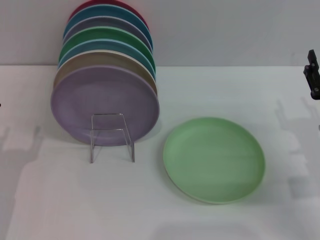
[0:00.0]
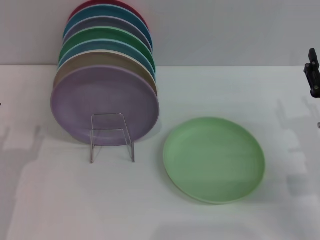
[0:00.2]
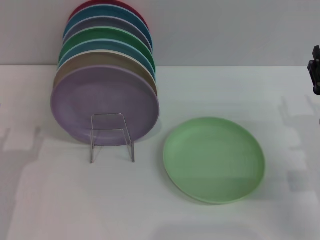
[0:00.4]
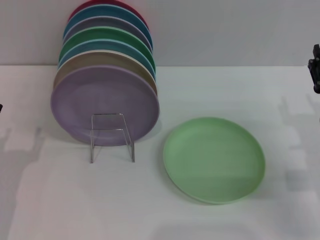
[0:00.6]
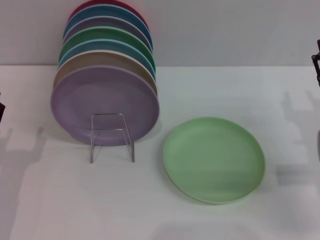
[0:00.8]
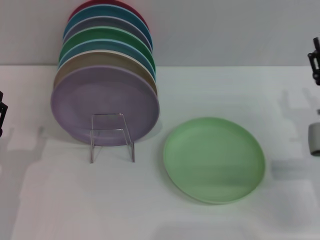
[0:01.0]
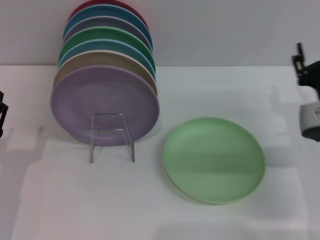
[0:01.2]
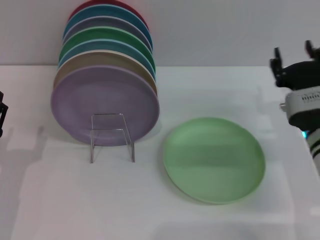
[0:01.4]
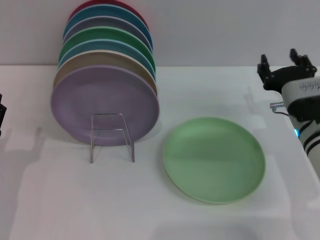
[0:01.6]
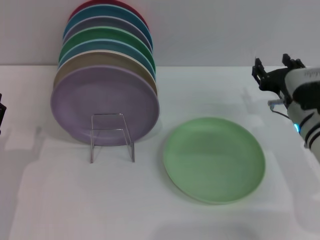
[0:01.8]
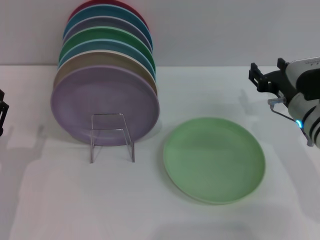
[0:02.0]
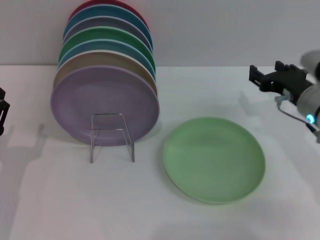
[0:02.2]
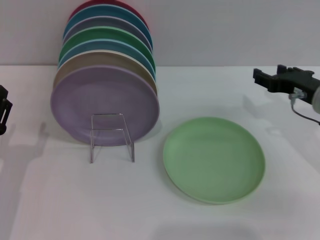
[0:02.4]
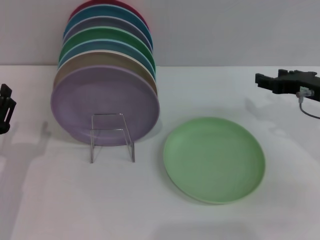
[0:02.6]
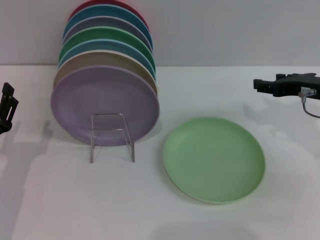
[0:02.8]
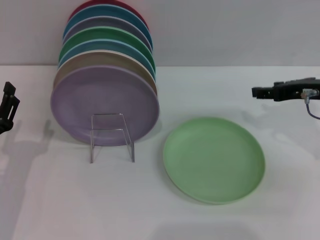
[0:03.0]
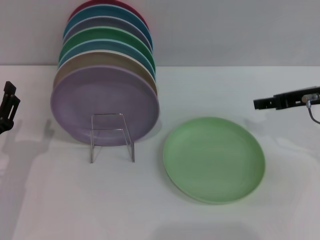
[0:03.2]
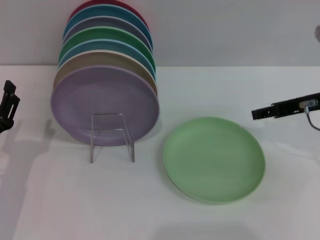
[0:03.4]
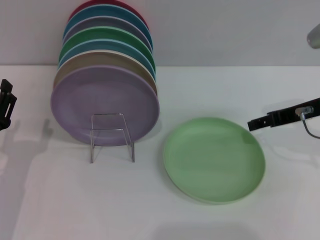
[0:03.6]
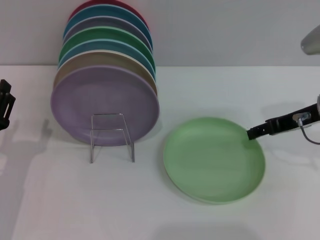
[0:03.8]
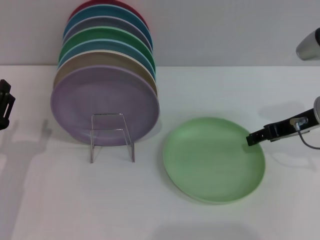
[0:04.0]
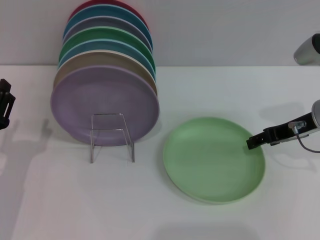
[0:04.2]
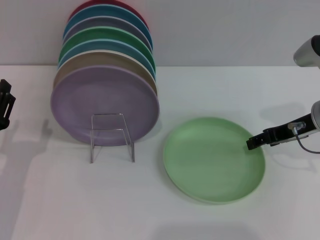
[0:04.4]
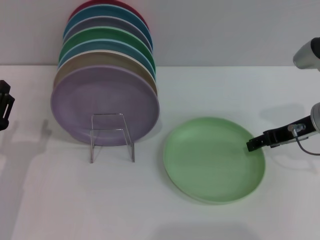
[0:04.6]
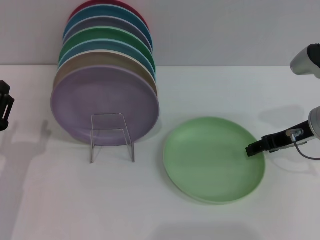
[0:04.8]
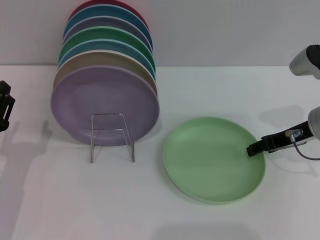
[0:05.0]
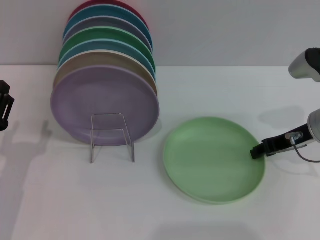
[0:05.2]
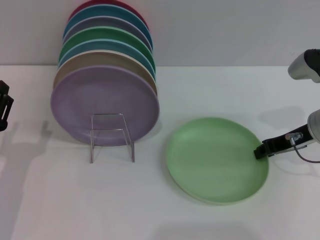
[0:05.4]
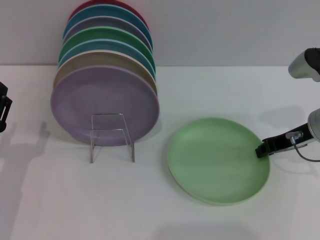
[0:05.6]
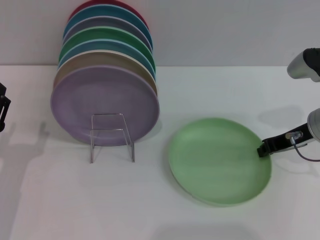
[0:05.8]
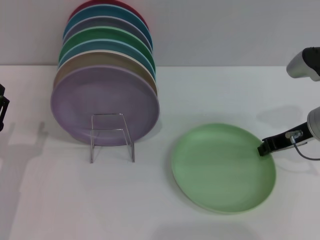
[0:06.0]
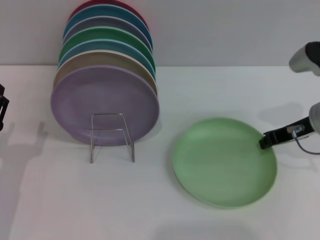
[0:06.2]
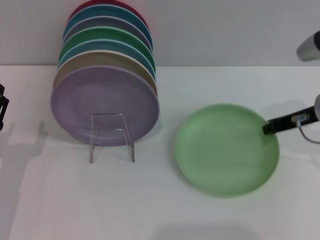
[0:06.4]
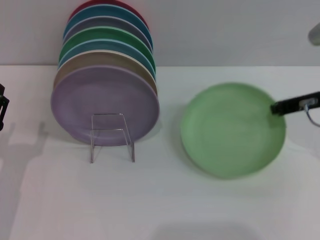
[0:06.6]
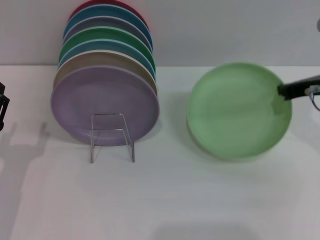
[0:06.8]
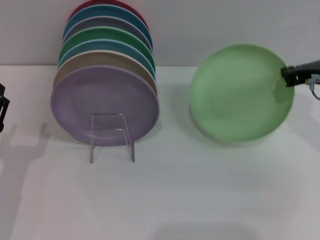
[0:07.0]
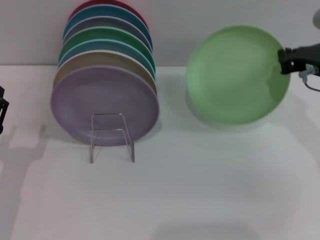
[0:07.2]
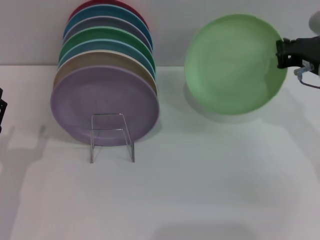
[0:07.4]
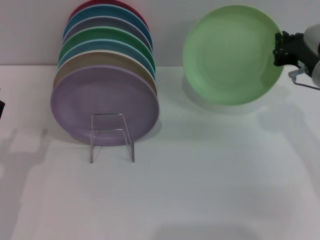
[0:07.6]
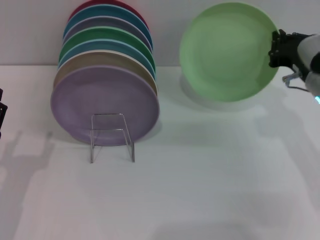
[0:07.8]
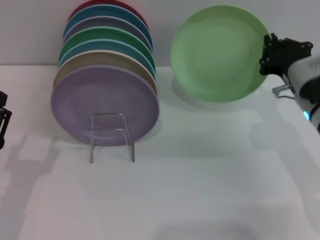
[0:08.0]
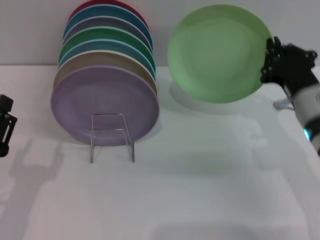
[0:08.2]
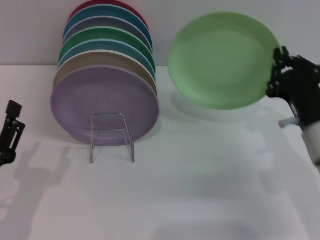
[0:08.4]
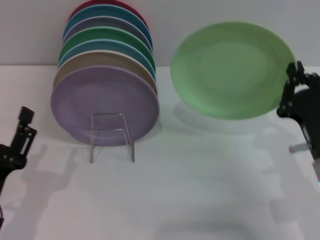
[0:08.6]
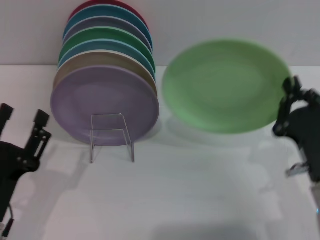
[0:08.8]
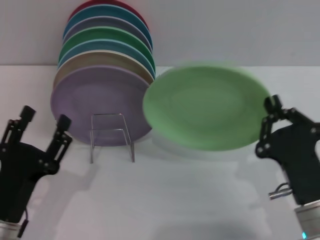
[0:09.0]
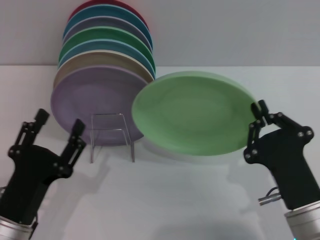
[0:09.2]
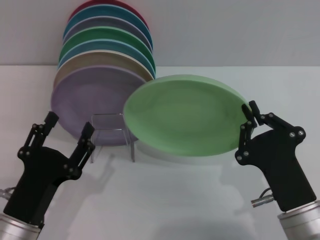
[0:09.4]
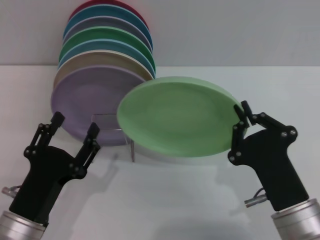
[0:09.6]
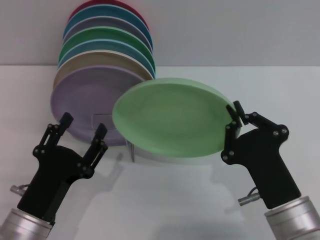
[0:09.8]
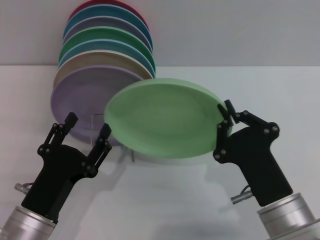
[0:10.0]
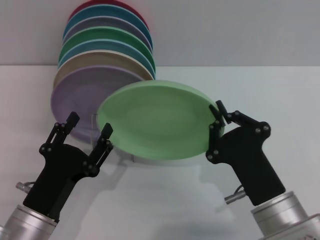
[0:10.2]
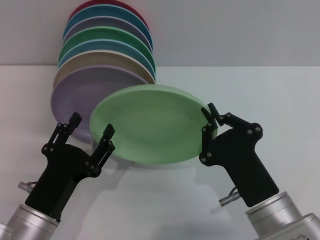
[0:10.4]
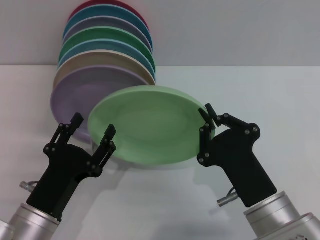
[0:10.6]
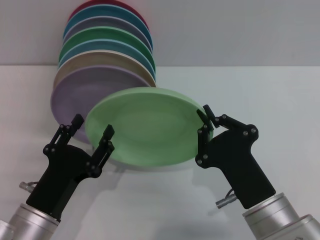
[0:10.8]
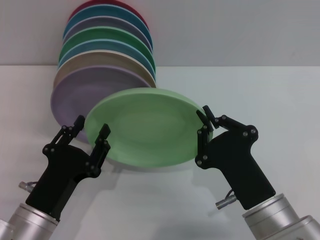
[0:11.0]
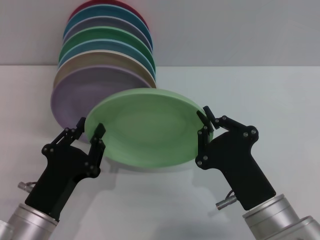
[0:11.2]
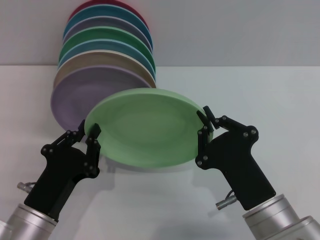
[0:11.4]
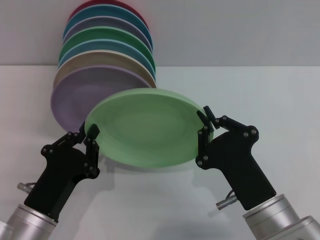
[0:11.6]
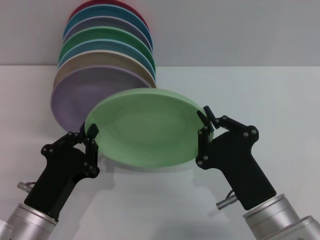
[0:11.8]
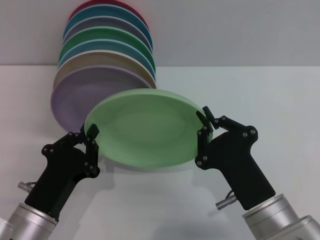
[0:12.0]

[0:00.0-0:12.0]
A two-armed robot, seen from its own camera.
Task of the whole recording: Grip the plate with one hand, pass it to the other, then set it on the shelf.
Step, 0:00.0 to 0:09.0: Pick up the plate with the right gripper.
0:00.0 to 0:01.6: The right gripper shifts approximately 10 cm forward and to the left.
0:01.6 to 0:03.0: The right gripper travels upward and to the right by some 10 cm.
0:04.4 to 0:06.0: The right gripper closes its fingers.
0:07.6 to 0:09.0: The left gripper shifts by approximately 5 cm, while the right gripper travels backward and downward by approximately 20 cm.
0:09.0 to 0:10.4: The right gripper moves to the left, about 5 cm.
0:10.4 to 0:12.0: The left gripper closes up.

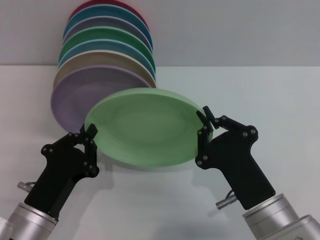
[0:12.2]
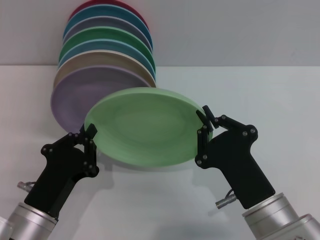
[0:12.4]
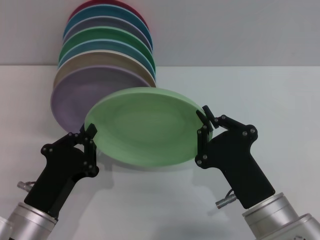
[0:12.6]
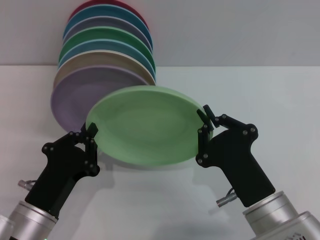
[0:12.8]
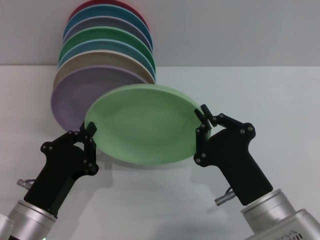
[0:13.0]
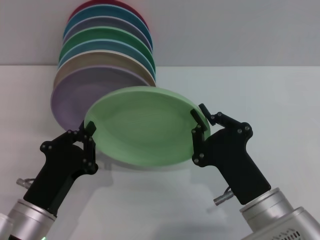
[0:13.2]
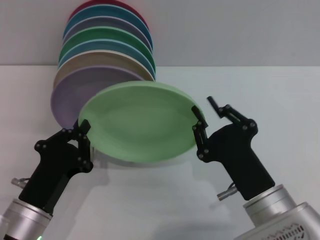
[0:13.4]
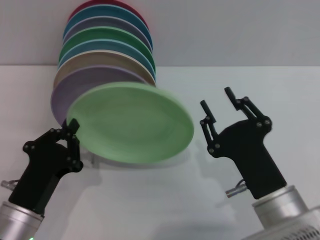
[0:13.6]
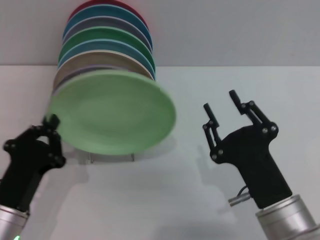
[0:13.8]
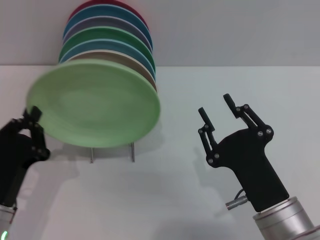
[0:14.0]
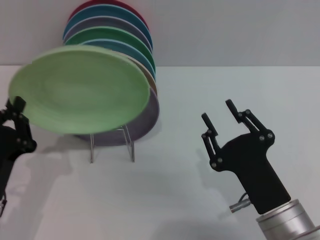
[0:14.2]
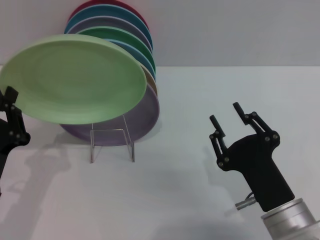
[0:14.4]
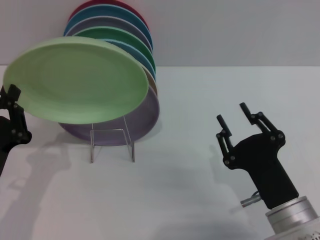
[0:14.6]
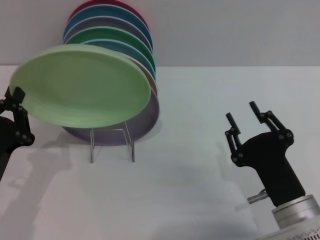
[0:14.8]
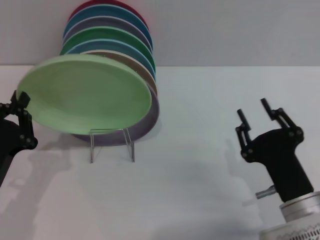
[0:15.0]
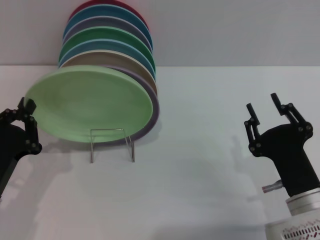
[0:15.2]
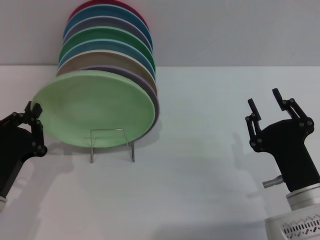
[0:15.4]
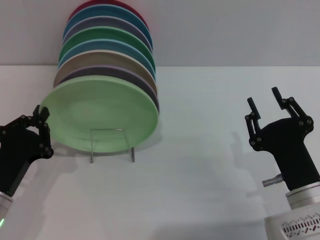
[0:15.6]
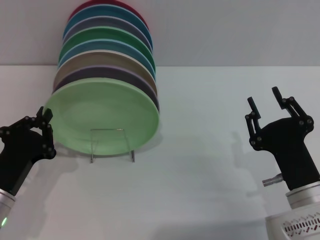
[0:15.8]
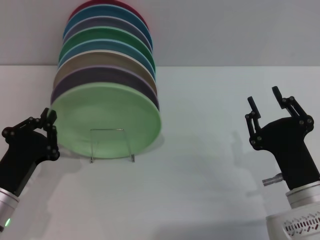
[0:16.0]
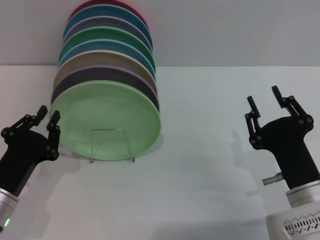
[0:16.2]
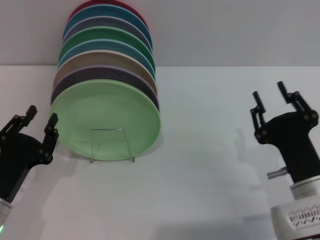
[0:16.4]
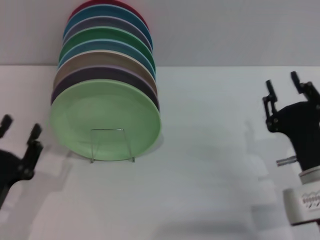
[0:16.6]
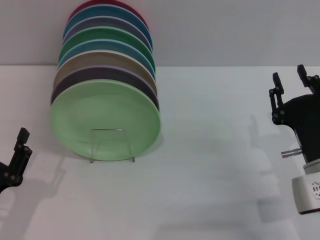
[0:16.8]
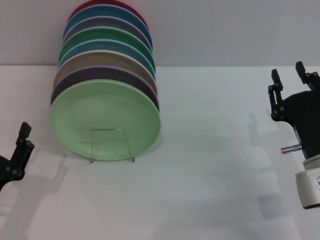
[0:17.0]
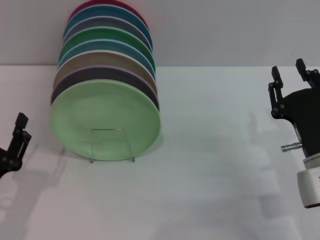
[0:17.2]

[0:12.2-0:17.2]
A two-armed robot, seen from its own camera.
Task of the whole recording: Grip the plate with one hand, pass it to the other, then set it on the shelf.
Step, 0:13.8 to 0:16.6: Place the plate on the shelf with the left gripper.
0:12.2 to 0:13.8: The right gripper opens its fingers.
0:13.8 to 0:15.6: The right gripper shifts by some 5 cm.
0:15.6 to 0:17.2: The left gripper opens up; the right gripper ends up roughly 5 cm from where it was.
